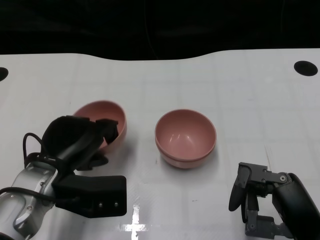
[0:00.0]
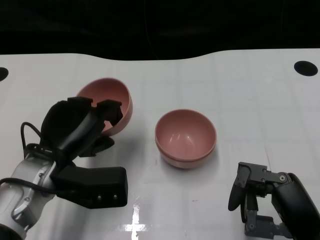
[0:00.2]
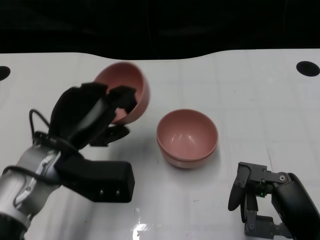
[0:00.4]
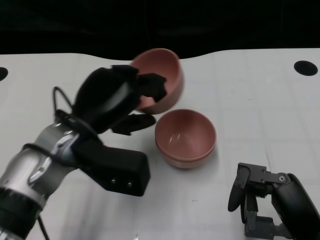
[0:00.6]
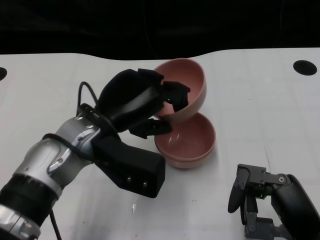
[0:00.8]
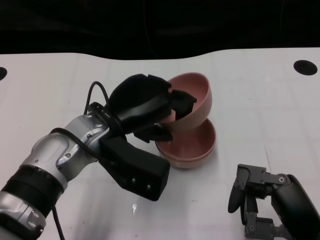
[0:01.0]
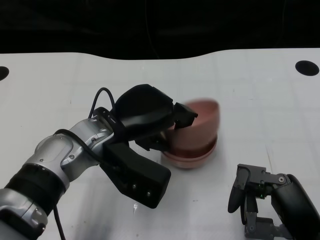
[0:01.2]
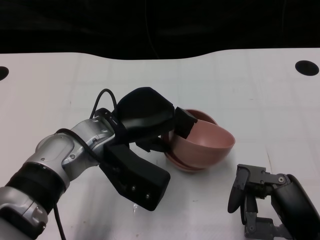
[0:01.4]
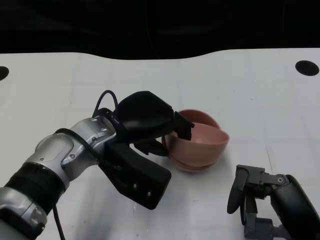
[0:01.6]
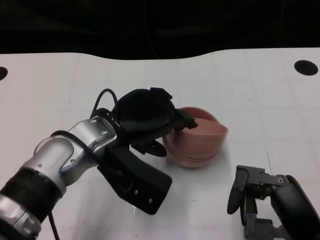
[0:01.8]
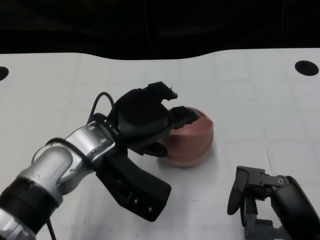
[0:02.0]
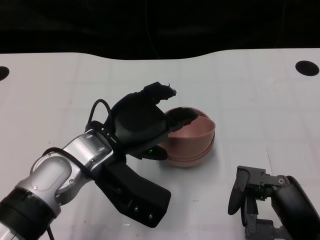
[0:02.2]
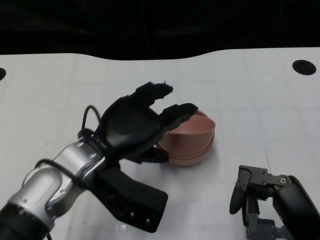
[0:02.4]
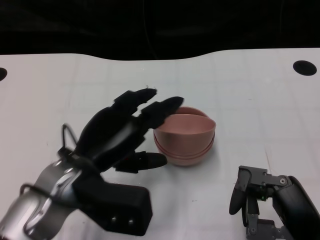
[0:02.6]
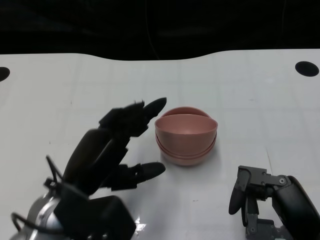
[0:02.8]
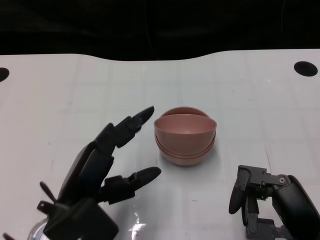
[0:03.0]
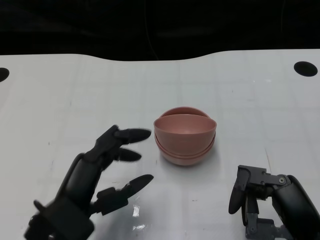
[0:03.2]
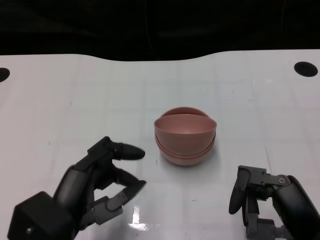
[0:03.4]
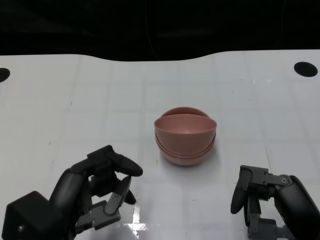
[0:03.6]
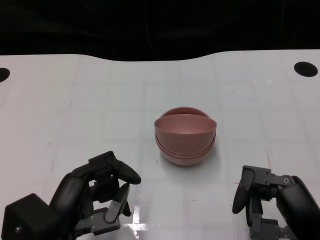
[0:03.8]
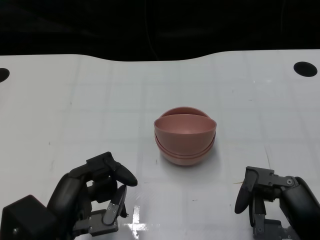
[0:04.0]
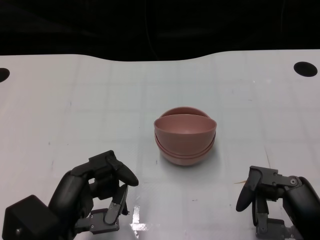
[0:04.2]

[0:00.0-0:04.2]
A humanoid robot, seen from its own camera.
Task of the whole recording: Pick up the bowl on one side of the table and place it on top of the middle bowl, then pick up the bowl on the other side of the table and place it on top of the middle bowls.
Step, 0:00.0 to 0:02.8: Place the bowl on the left onto the bowl in the middle with left gripper.
0:00.0 to 0:01.4: The left hand is displaced to the right by some 10 cm.
0:01.4 to 0:02.8: The left hand moves backward and to the left, about 10 cm.
0:02.8 to 0:04.2: The left hand travels backward by about 5 cm.

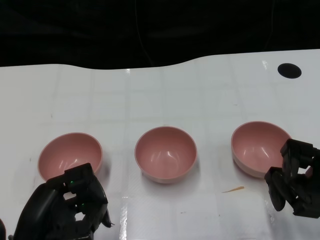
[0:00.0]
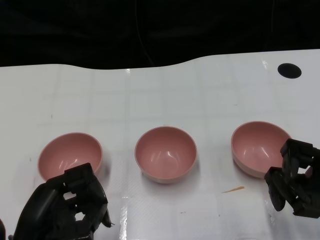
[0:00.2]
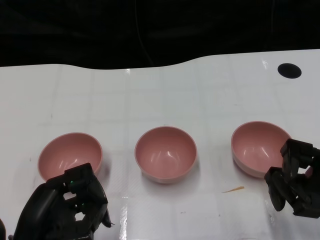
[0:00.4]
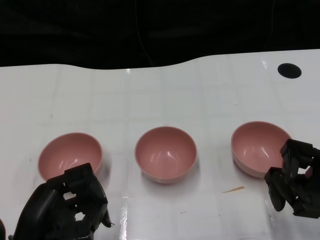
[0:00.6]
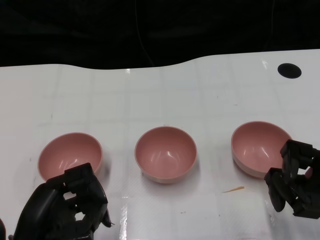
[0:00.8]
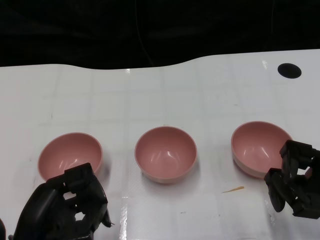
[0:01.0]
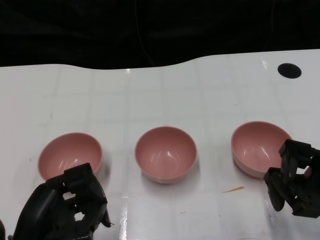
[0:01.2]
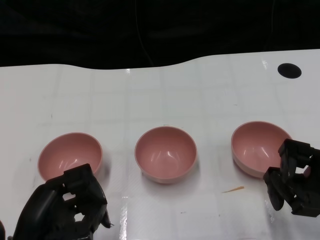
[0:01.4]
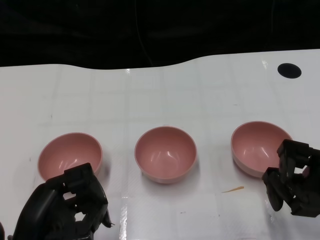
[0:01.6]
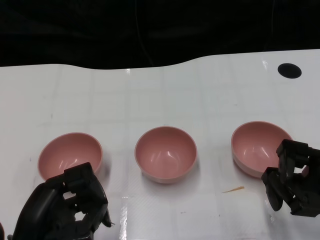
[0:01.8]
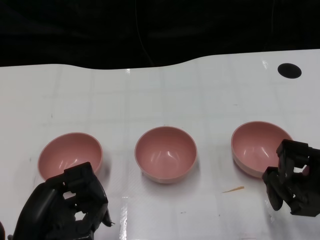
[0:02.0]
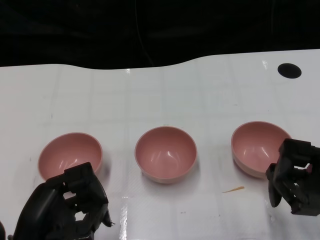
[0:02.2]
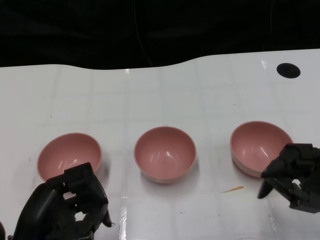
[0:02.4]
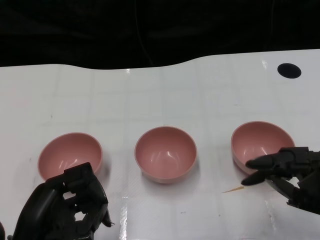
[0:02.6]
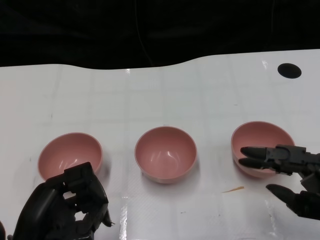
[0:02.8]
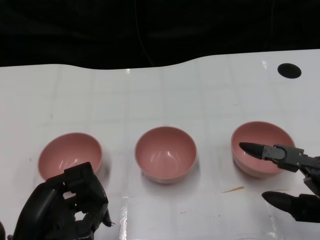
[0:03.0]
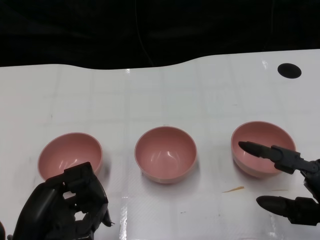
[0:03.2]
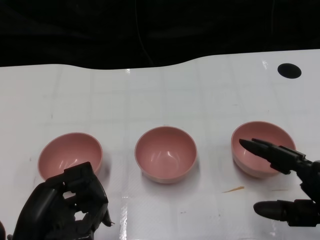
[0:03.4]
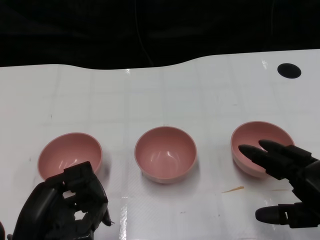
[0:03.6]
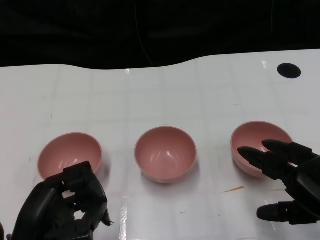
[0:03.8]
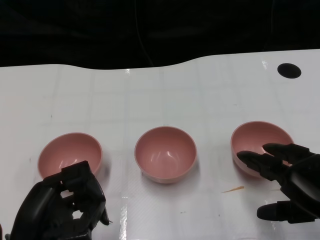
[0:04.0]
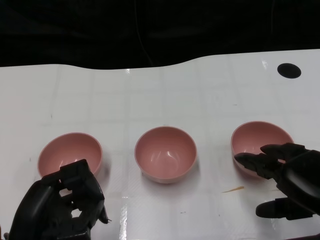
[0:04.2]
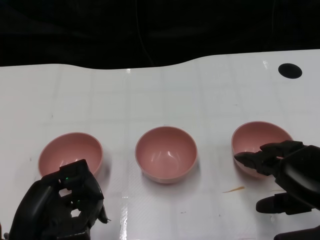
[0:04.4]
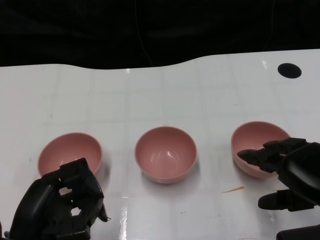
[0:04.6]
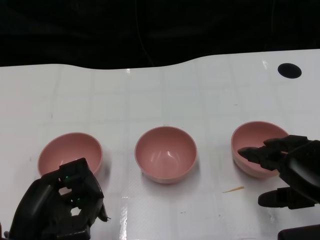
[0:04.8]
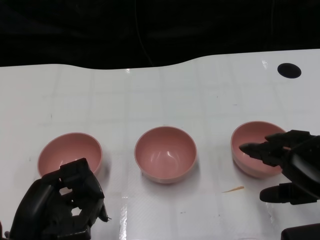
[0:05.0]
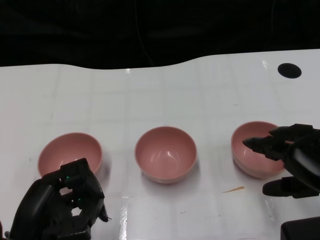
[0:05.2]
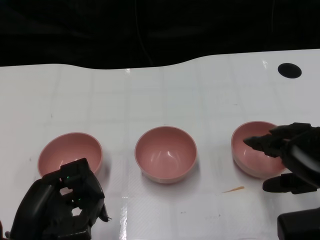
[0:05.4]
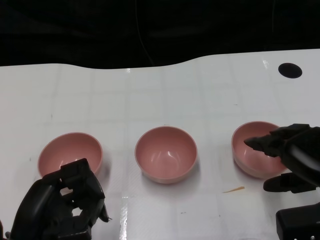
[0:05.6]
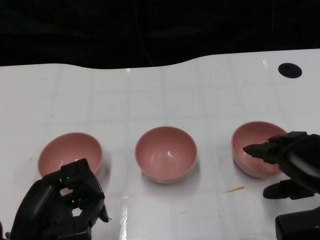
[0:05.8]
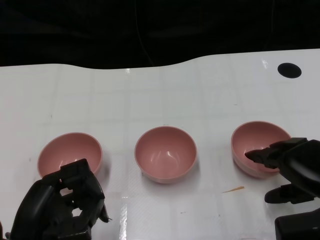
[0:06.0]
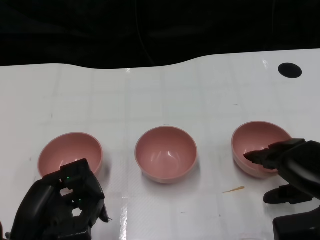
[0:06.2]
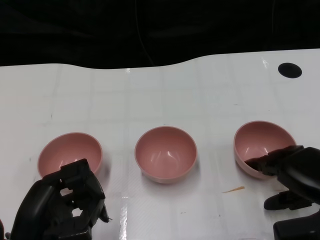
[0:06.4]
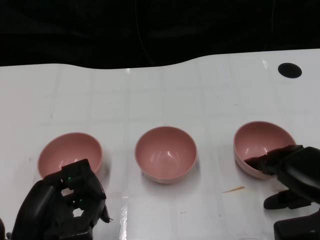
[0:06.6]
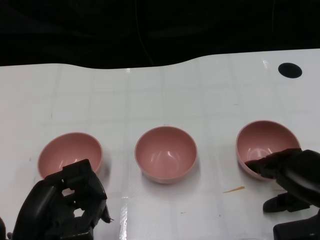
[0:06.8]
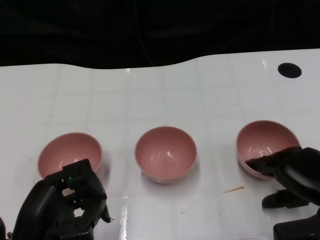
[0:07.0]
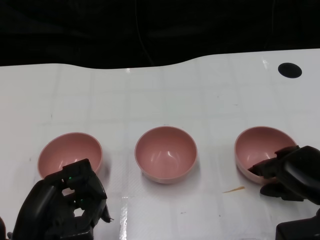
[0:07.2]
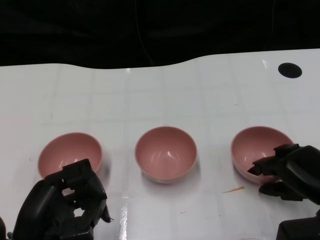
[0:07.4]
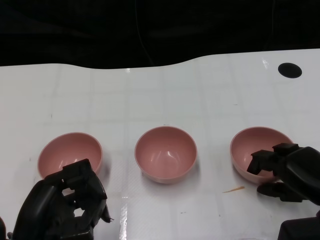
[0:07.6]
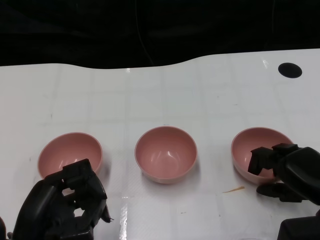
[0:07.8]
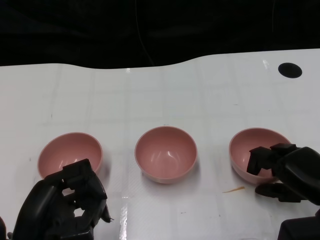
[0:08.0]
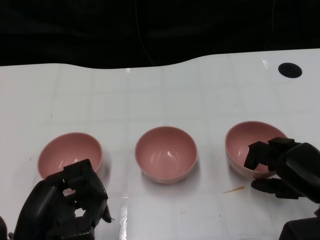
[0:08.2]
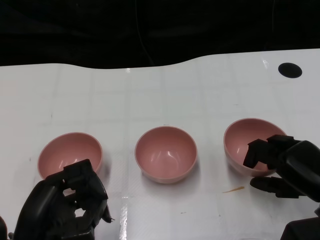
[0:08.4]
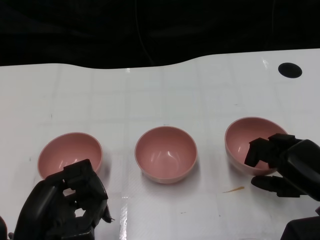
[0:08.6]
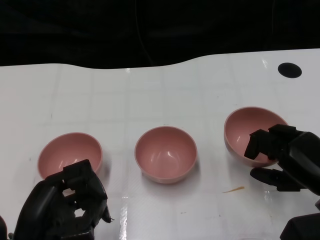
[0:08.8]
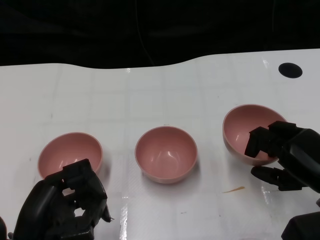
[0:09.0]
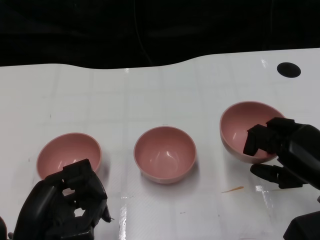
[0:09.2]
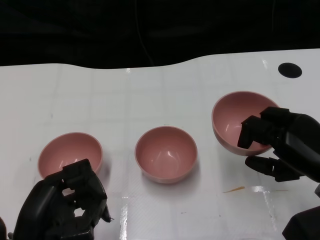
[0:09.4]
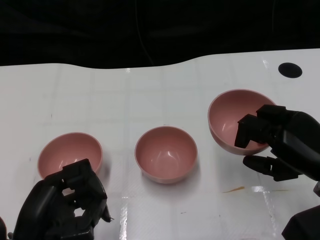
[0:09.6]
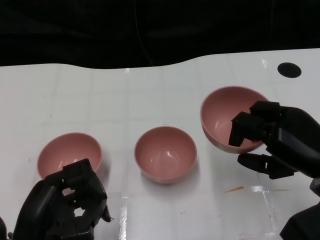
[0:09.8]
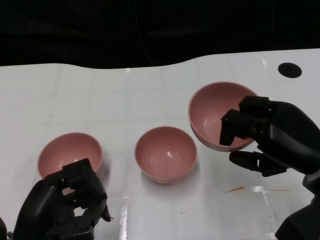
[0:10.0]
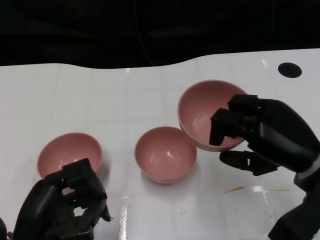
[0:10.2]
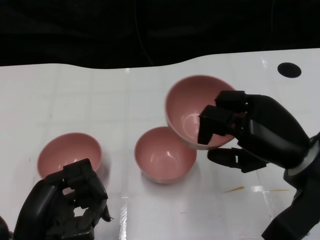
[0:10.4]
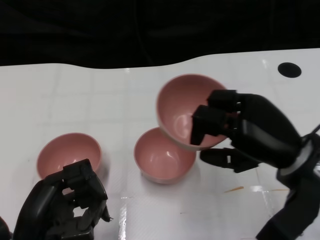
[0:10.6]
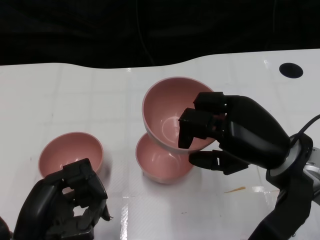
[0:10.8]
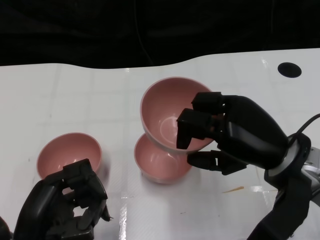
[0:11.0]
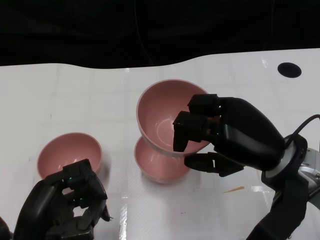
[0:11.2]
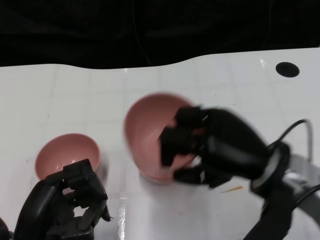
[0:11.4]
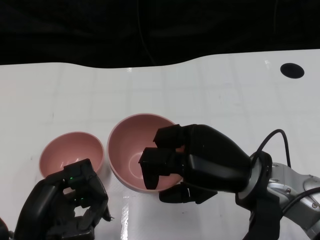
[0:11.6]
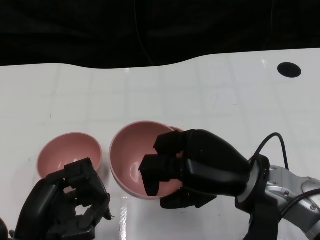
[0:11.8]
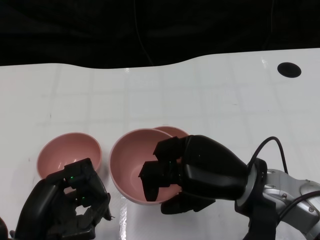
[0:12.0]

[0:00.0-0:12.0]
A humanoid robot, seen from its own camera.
Task of the whole recording: Pick up the bowl on one side of the table and place it on top of the middle bowl, then pick up the bowl on the other side of the table and place it on top of the middle bowls.
Step, 0:02.2 to 0:08.0: Grasp the bowl on the right with the right gripper.
0:04.4 to 0:06.0: The hands move only a little.
0:06.0 to 0:07.6: There are only small adjustments of the hands.
0:07.6 to 0:09.0: The hands stay close to where they were, moving slightly.
0:09.0 to 0:10.4: The right hand goes roughly 10 cm upward and to the left.
0:10.4 to 0:12.0: The right hand travels to the left by approximately 5 cm.

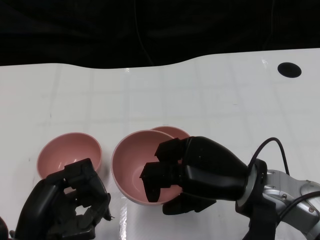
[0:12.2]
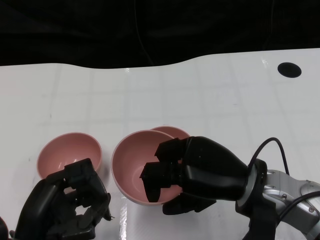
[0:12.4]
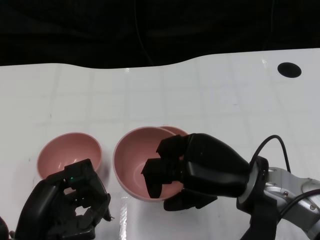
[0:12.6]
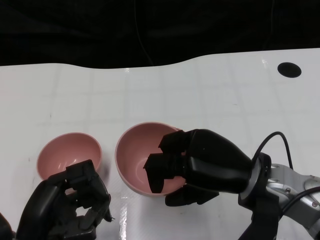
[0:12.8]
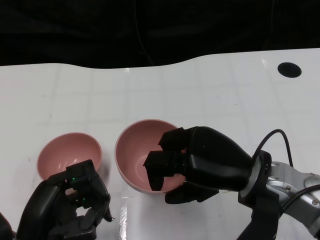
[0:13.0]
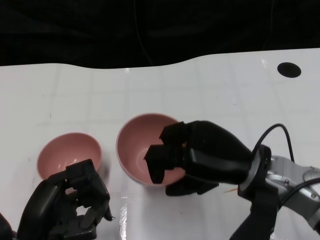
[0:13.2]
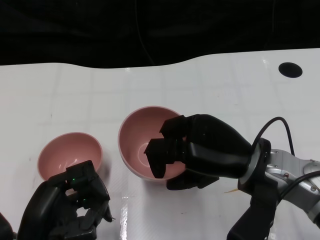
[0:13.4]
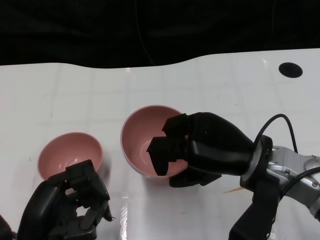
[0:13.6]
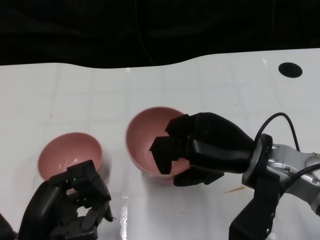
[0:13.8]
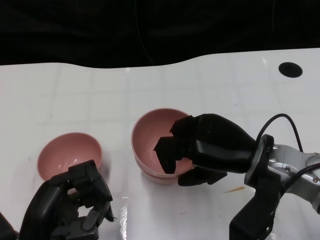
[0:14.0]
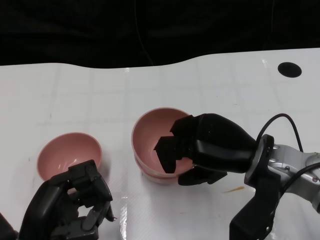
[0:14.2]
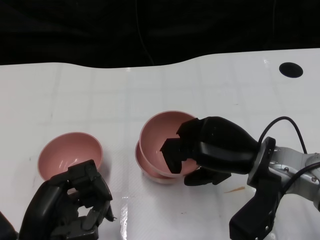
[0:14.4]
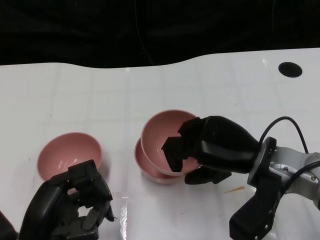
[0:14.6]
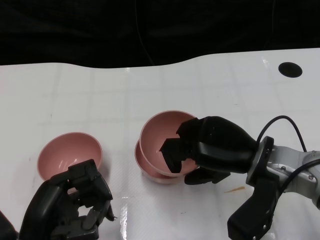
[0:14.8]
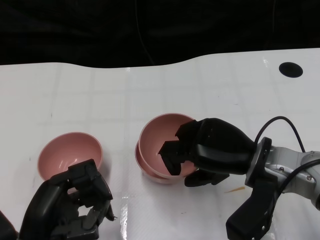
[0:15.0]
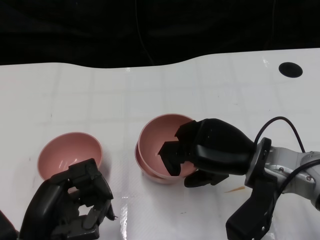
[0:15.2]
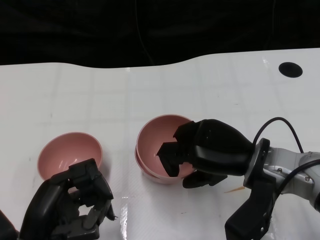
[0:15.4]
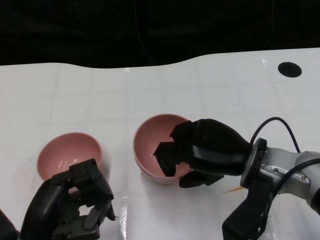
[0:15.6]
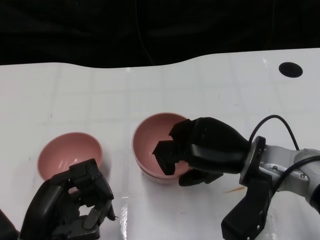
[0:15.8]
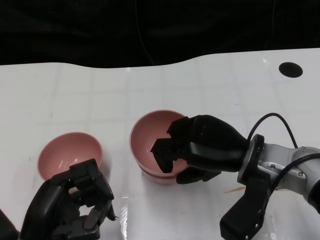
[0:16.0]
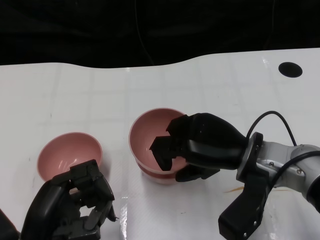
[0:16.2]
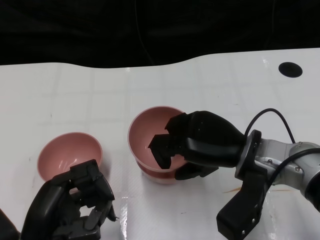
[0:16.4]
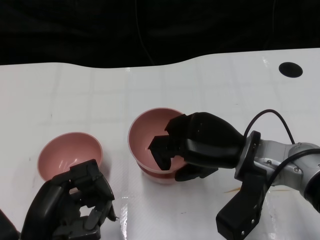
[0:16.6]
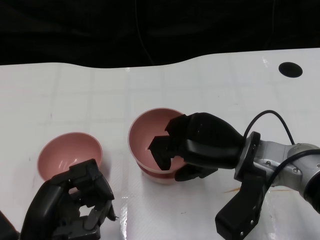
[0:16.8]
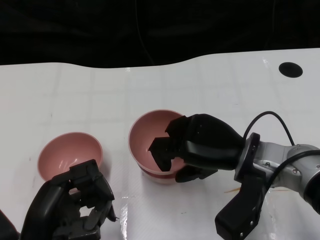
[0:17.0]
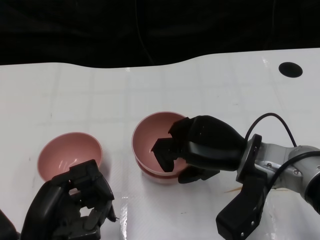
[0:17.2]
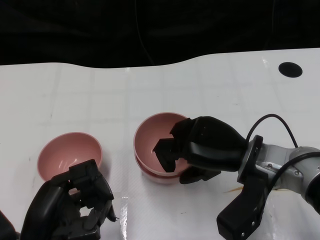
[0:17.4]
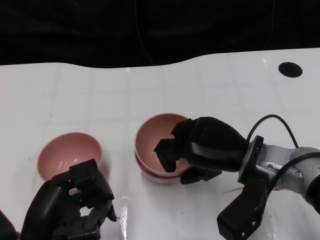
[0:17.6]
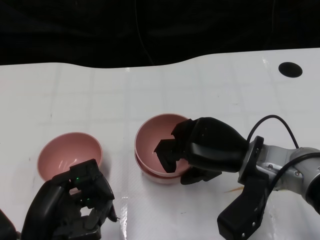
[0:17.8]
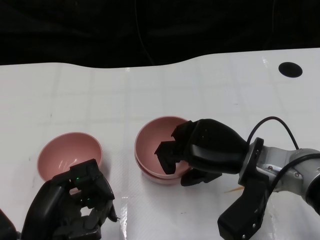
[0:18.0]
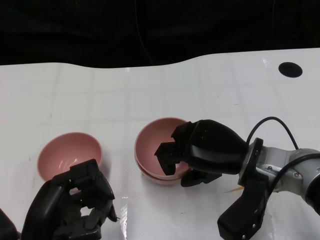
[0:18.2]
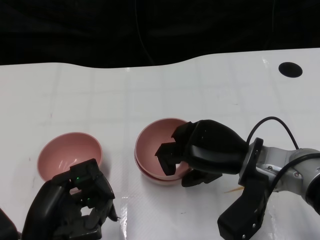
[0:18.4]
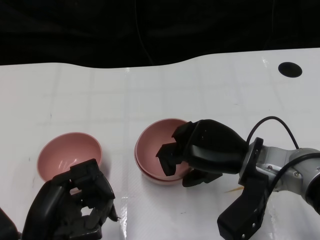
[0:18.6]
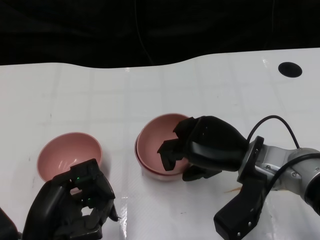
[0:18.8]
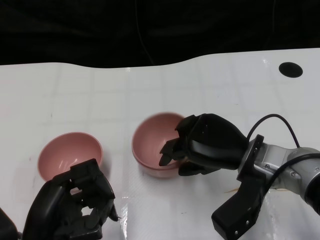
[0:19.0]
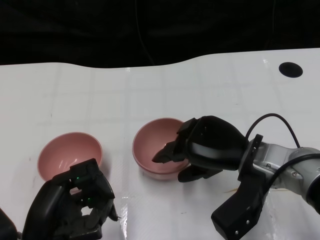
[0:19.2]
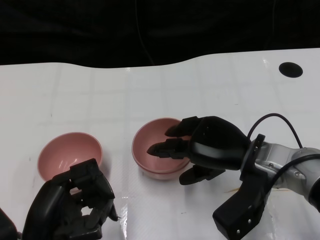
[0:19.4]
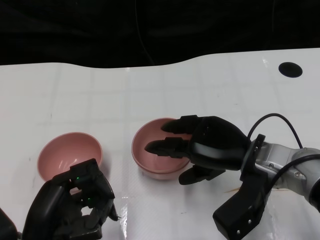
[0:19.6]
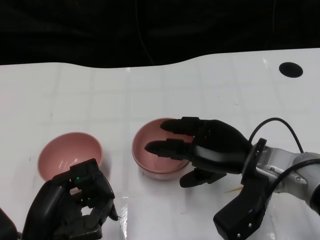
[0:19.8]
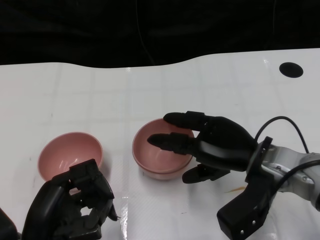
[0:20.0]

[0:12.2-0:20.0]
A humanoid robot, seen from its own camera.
Task of the whole recording: Pick up the bowl on one side of the table and place it on top of the middle bowl, then pick up the bowl on the other side of the table and place it on top of the middle bowls.
0:13.8 to 0:16.8: There are only small adjustments of the hands.
0:16.8 to 0:18.4: The two hands keep their place.
0:18.4 to 0:20.0: The hands make only small movements.
